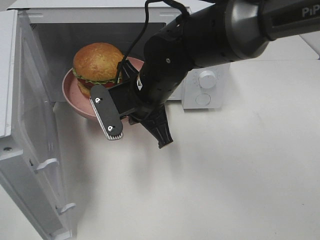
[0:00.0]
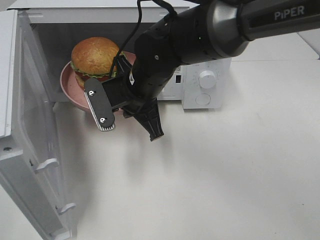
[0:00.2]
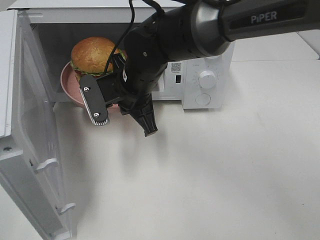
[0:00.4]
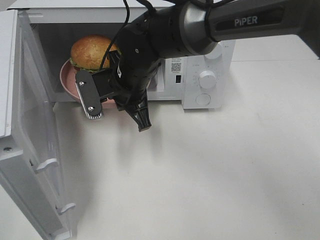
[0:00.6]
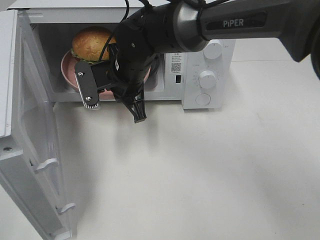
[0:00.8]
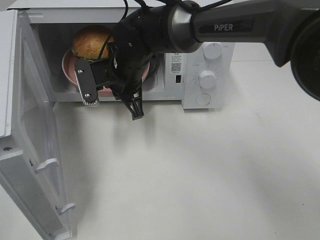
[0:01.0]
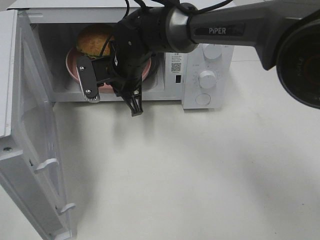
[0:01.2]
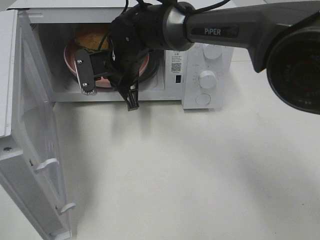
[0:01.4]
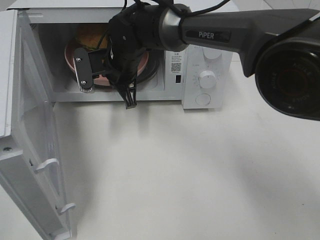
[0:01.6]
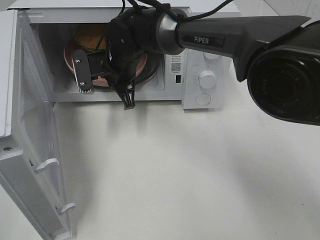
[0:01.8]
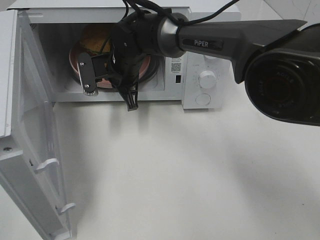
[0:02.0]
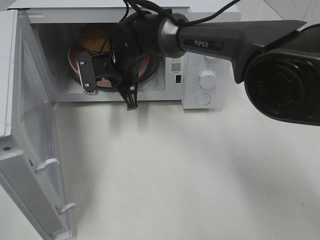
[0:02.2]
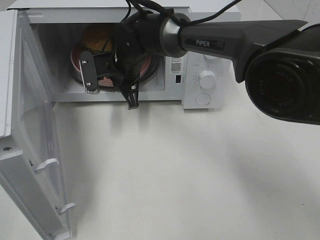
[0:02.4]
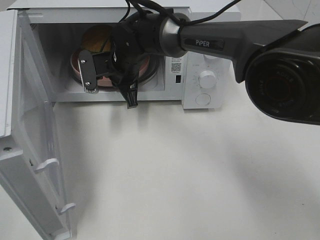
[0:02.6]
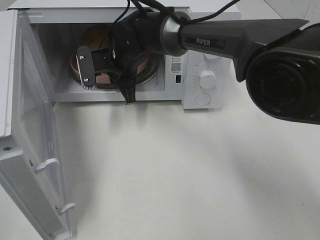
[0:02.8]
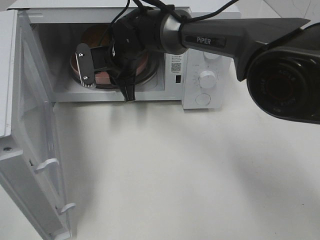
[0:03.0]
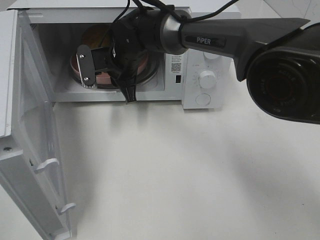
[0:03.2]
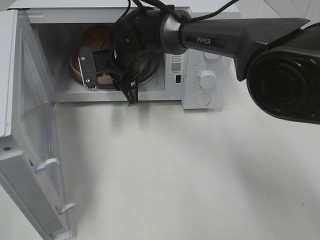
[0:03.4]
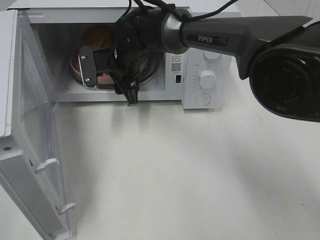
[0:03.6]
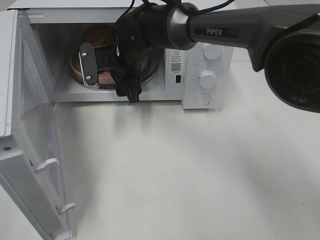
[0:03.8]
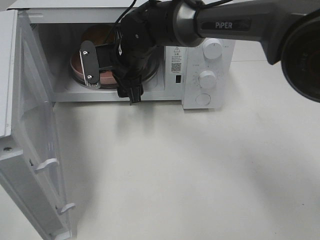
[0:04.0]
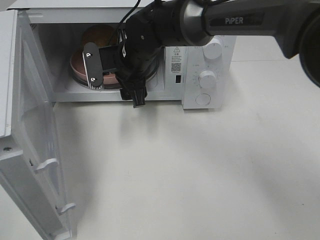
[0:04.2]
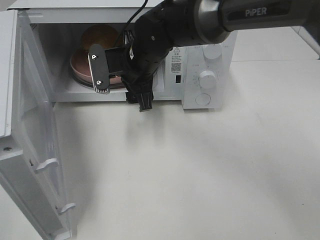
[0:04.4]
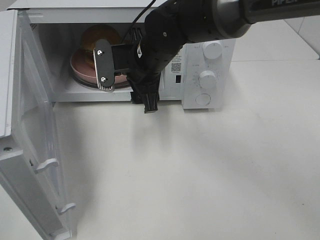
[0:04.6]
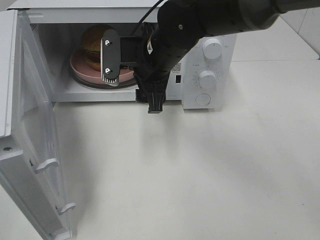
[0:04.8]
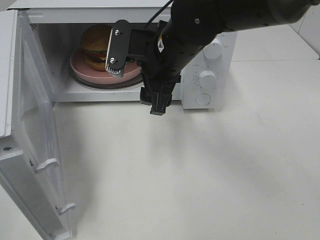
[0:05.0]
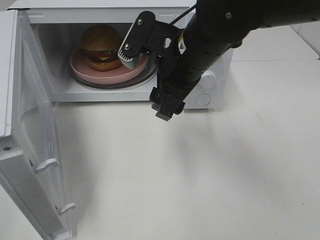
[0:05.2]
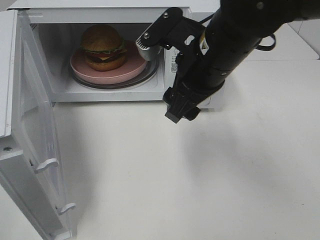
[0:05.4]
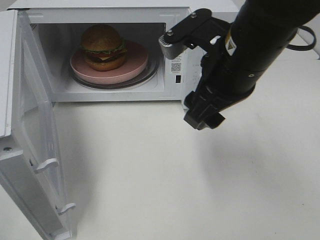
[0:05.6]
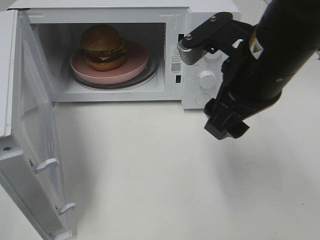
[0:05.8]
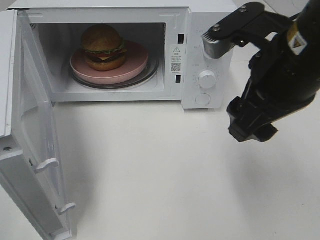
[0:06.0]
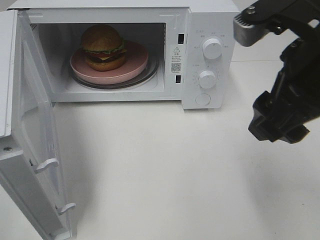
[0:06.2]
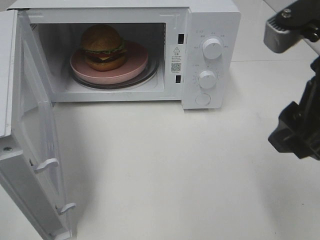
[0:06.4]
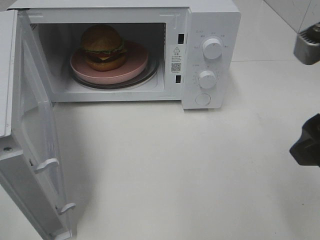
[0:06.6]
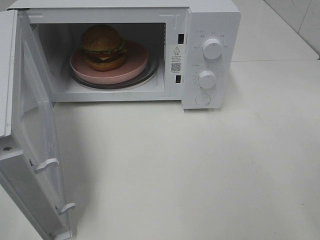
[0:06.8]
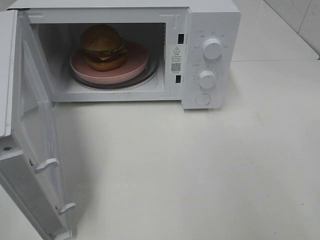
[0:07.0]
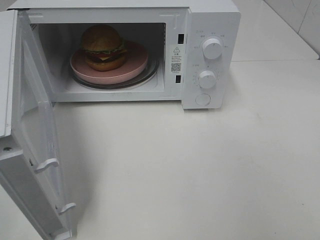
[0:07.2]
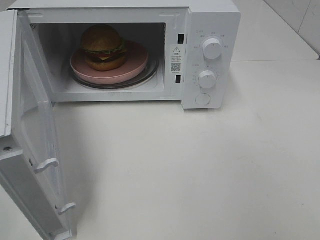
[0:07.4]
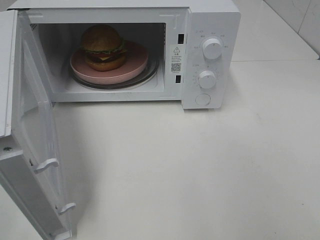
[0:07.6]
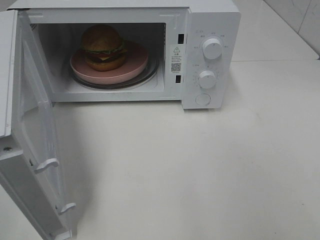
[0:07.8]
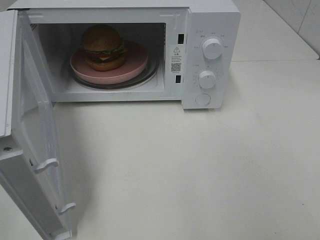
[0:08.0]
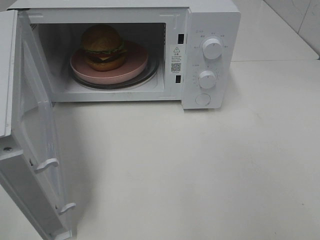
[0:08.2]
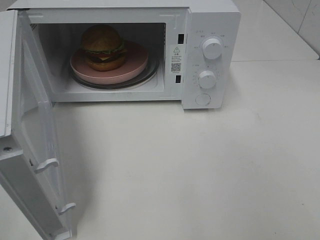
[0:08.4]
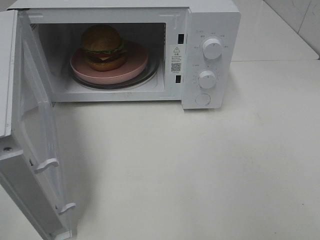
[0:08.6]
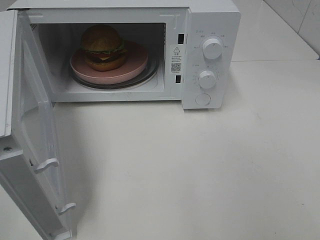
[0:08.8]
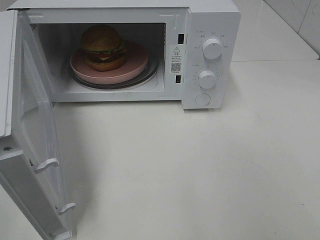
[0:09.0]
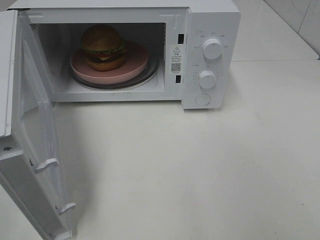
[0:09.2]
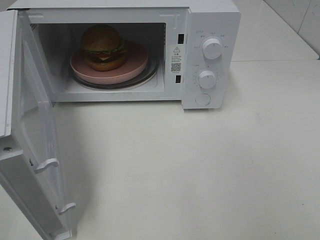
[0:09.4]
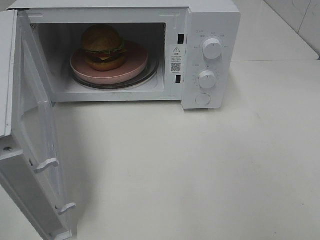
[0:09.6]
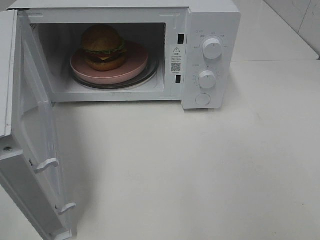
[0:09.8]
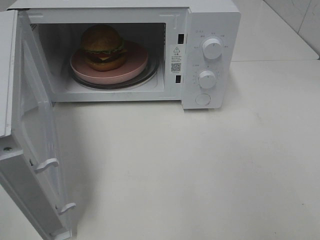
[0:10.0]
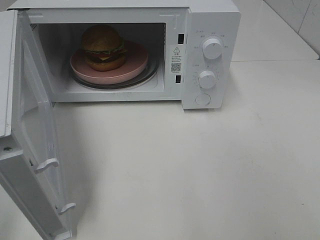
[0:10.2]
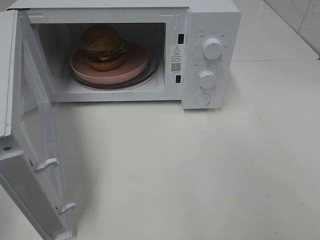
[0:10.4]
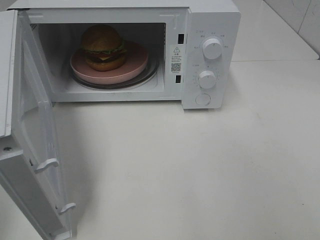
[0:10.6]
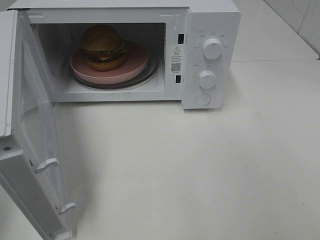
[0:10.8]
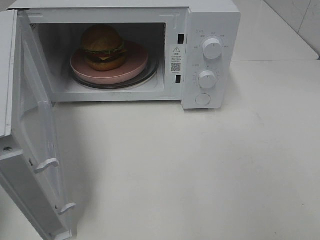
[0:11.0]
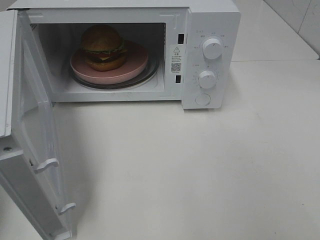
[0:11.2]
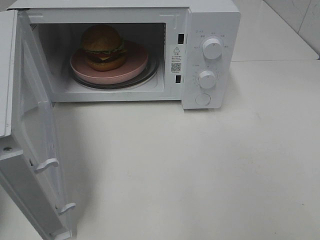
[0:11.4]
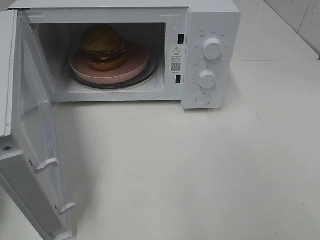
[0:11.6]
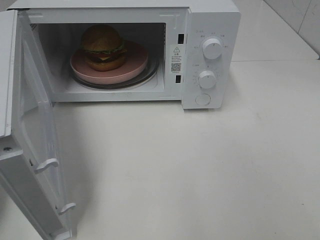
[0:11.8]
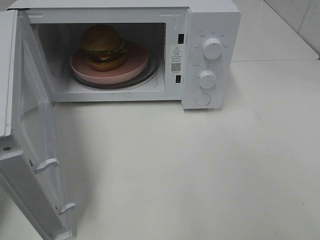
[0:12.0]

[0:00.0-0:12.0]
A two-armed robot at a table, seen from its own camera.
Task of the whole recording: Heat the burger.
Step, 0:00.0 to 0:03.2: Right hand: place the plate in the microwave.
0:00.0 to 0:01.6: The right gripper travels forward and to the left by roughly 10 cm.
0:01.6 to 0:03.0: The right gripper opens its fingers.
0:03.0 to 0:04.4: The right gripper shifts by some 5 cm, and opens up.
0:04.4 to 0:06.0: The right gripper shifts approximately 25 cm backward, to the right and upward.
0:06.0 to 0:07.6: The right gripper shifts approximately 25 cm backward and to the right.

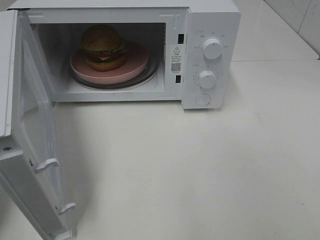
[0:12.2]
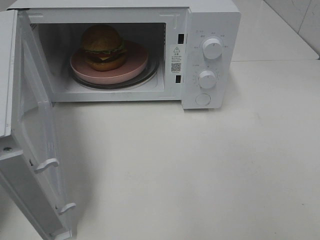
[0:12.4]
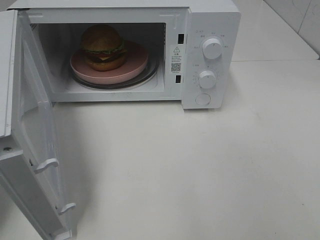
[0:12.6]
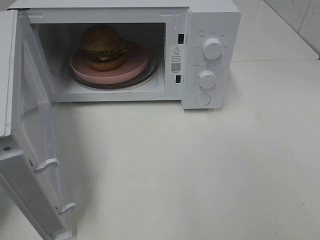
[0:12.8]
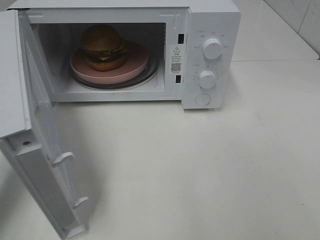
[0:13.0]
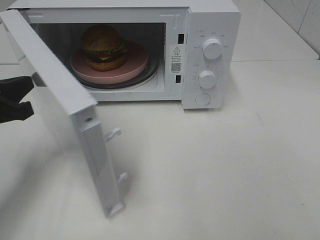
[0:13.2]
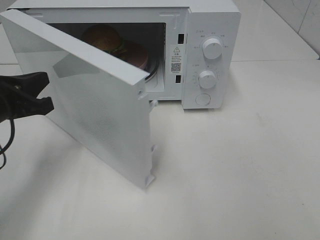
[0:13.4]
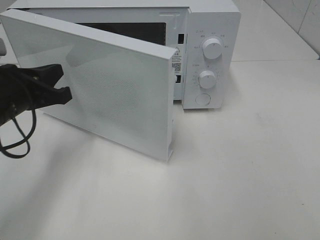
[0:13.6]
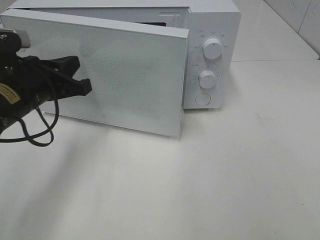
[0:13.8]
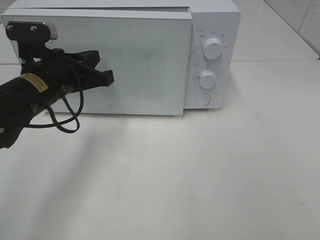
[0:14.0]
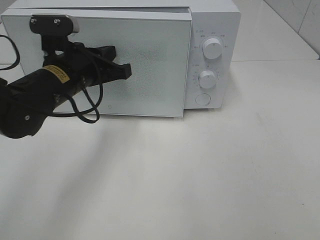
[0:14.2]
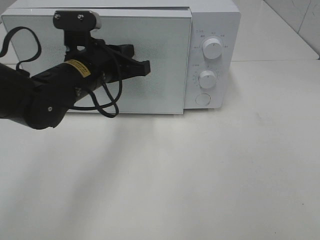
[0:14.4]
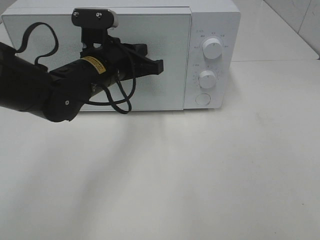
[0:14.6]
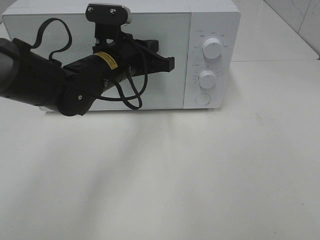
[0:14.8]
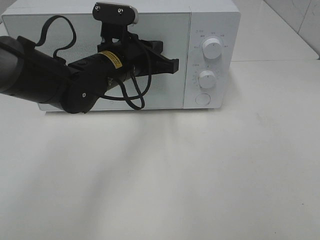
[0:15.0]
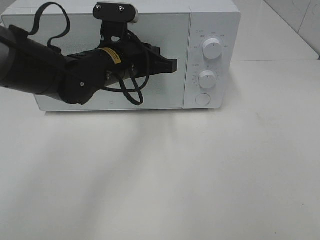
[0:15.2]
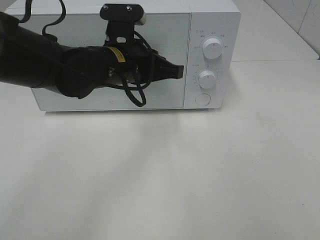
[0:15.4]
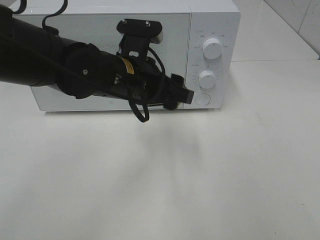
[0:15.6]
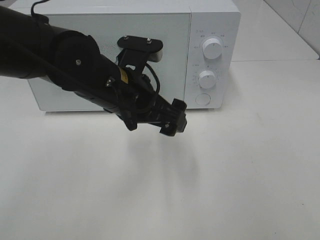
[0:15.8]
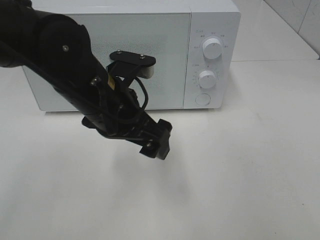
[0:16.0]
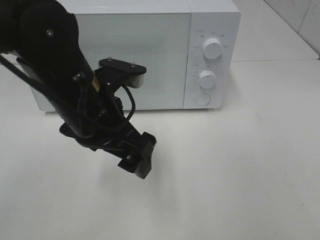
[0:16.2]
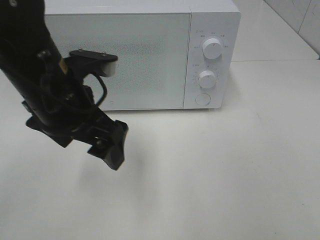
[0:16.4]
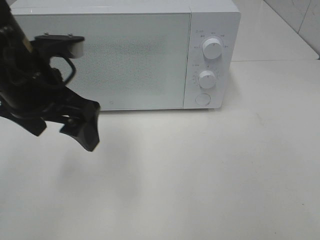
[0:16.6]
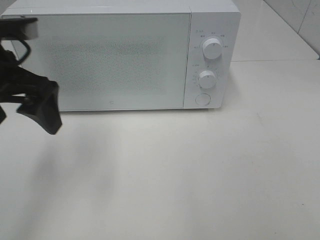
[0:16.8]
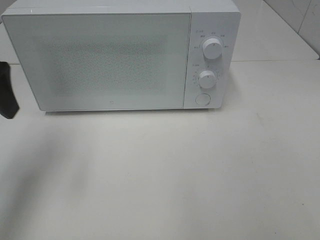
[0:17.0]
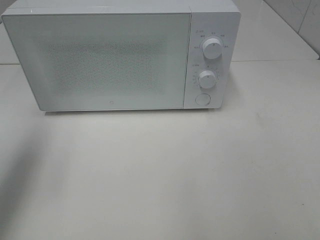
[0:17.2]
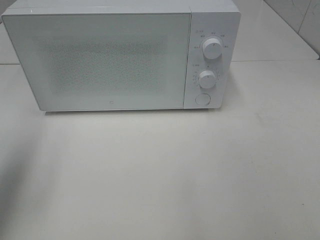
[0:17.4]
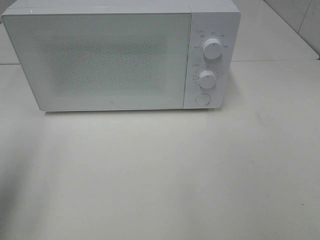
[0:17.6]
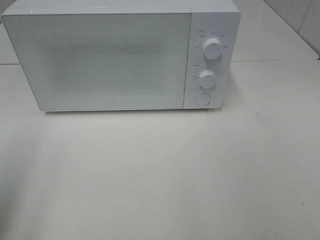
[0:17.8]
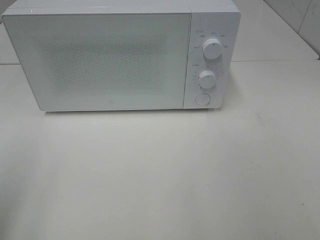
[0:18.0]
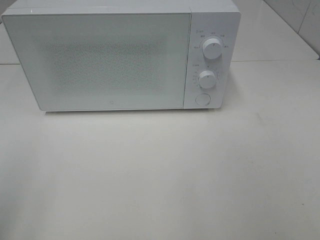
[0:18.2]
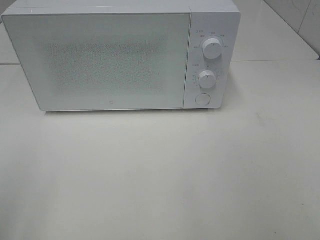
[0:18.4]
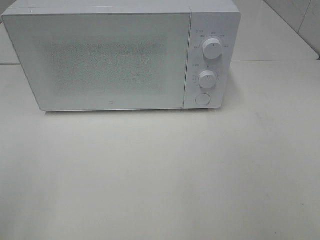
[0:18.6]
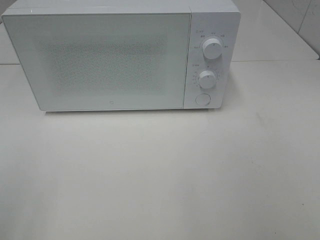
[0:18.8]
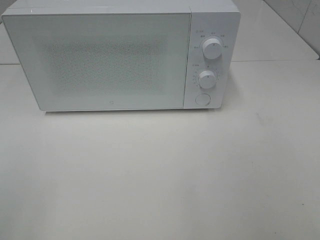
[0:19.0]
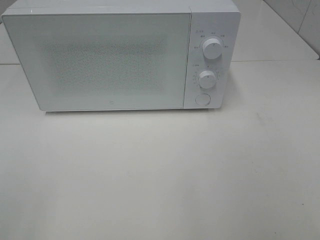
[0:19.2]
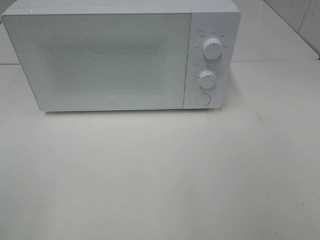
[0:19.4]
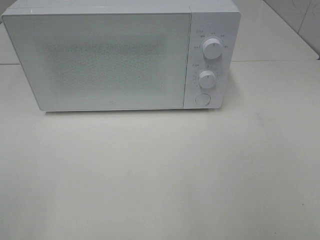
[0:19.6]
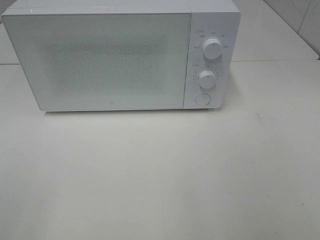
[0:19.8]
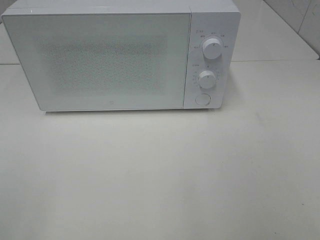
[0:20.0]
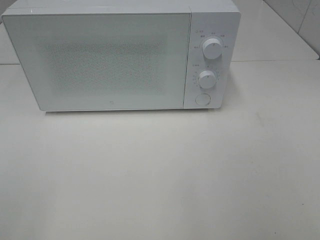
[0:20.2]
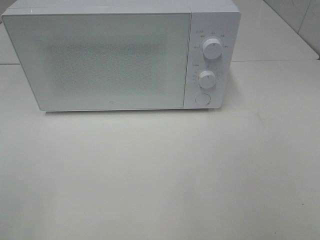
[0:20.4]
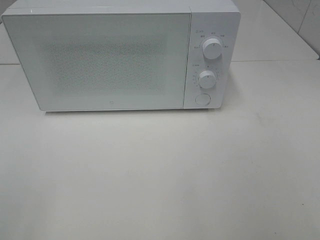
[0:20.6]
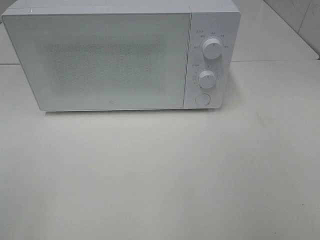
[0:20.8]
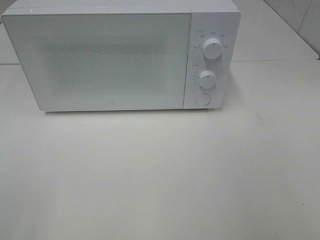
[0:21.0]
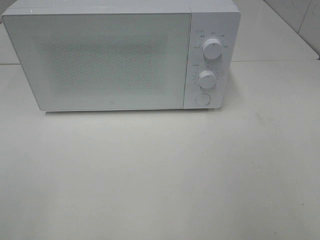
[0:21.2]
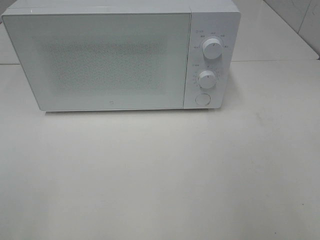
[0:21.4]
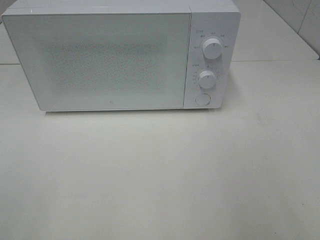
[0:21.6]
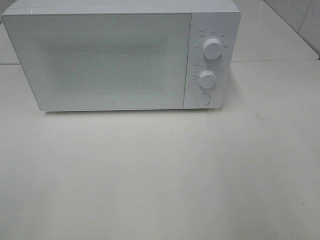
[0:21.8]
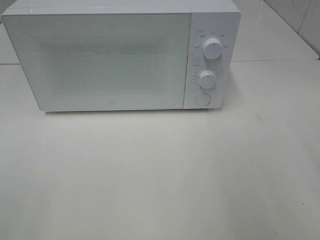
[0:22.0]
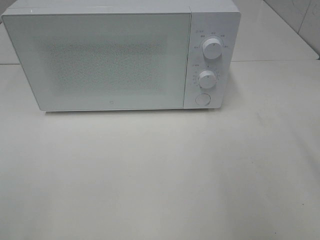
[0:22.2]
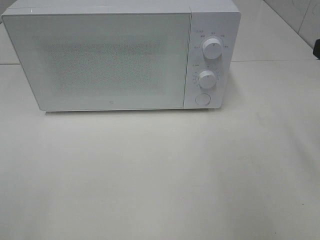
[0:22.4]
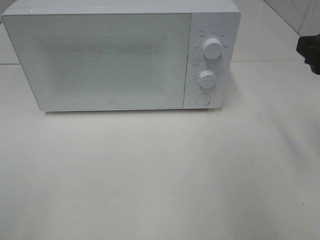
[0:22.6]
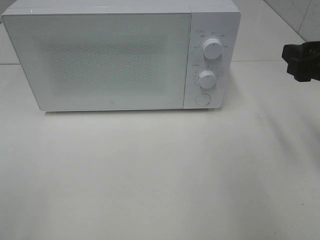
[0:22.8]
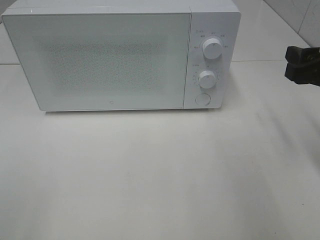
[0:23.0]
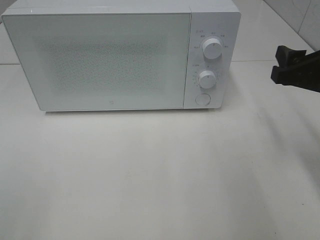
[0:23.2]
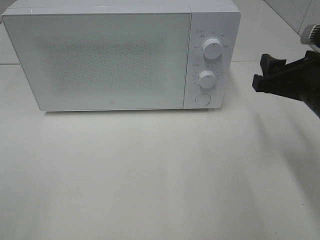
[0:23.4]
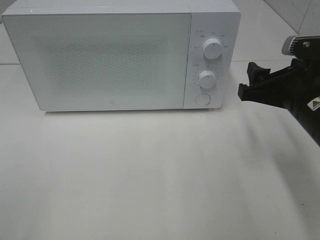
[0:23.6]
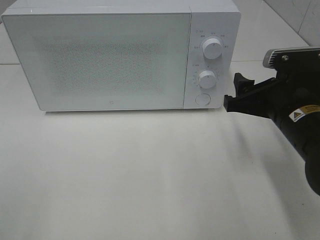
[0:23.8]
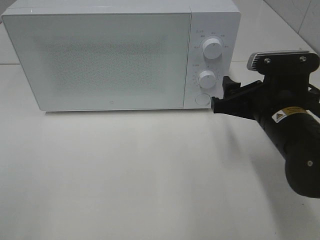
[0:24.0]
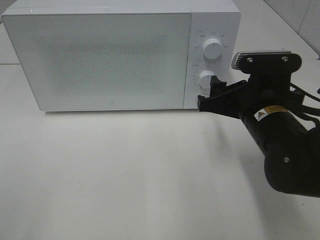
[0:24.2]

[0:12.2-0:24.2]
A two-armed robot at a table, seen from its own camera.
Task of the whole recording: Heat the burger.
Step, 0:12.2 to 0:15.2: Left hand: close the microwave door.
0:12.2 to 0:13.8: The left gripper moves to the right and forward, approximately 15 cm.
0:13.8 to 0:15.2: The left gripper is displaced to the right and forward by roughly 15 cm.
0:15.2 to 0:16.6: The left gripper shifts roughly 15 cm to the left, backward and upward, and opens.
0:16.6 to 0:18.2: The left gripper travels backward and to the left by roughly 25 cm.
0:21.2 to 0:22.6: The right gripper heads forward, covering roughly 20 cm.
0:22.6 to 0:24.2: The right gripper moves to the left and downward, about 15 cm.
